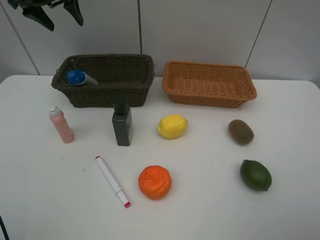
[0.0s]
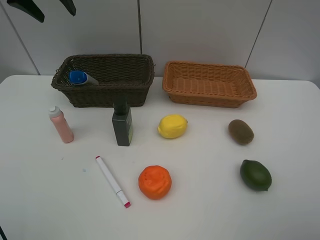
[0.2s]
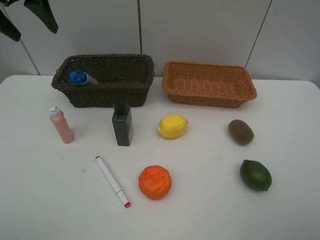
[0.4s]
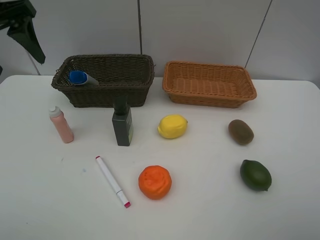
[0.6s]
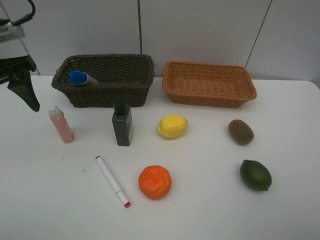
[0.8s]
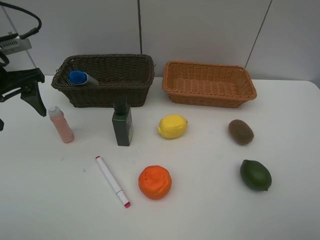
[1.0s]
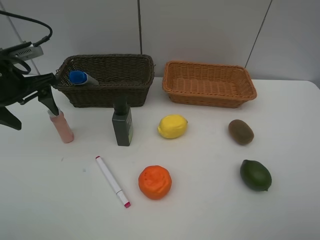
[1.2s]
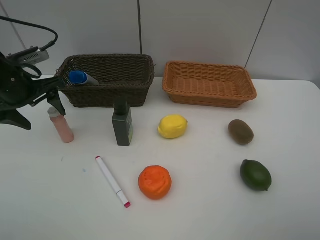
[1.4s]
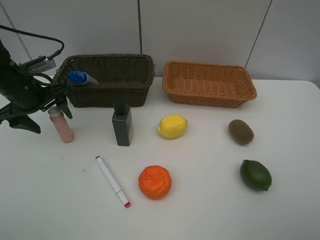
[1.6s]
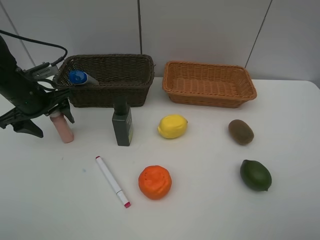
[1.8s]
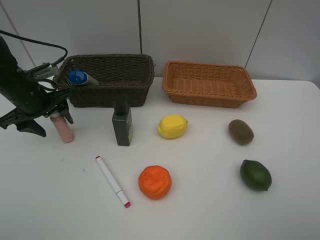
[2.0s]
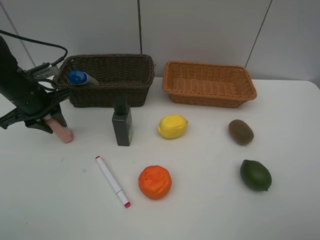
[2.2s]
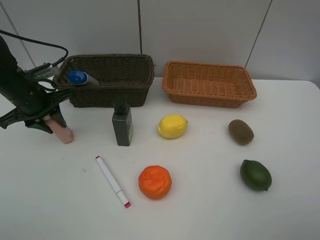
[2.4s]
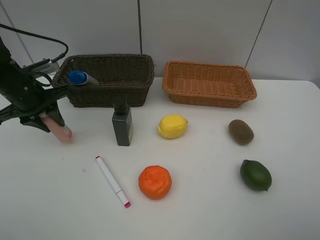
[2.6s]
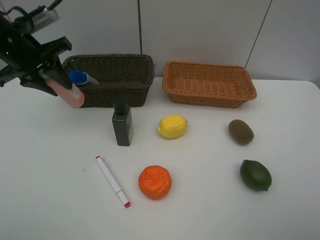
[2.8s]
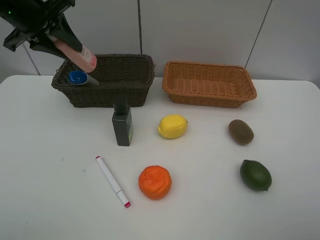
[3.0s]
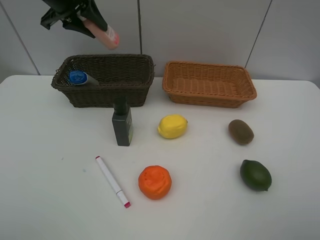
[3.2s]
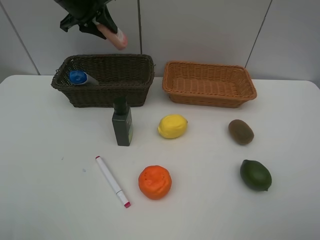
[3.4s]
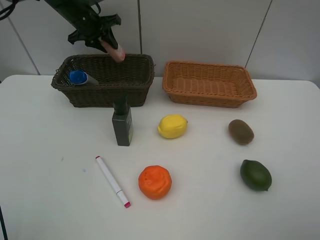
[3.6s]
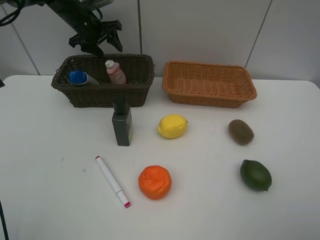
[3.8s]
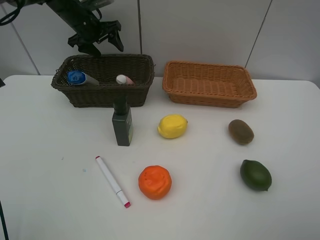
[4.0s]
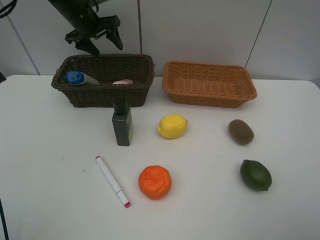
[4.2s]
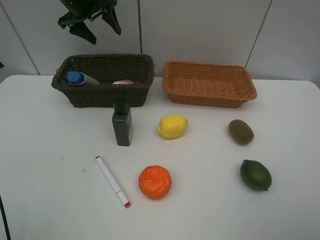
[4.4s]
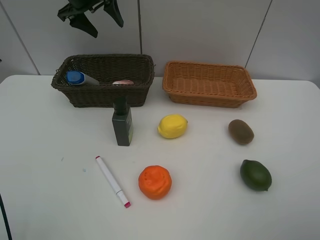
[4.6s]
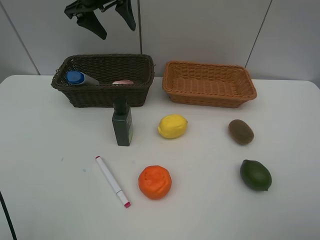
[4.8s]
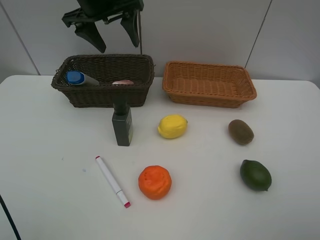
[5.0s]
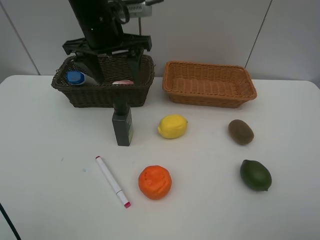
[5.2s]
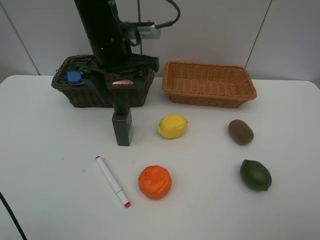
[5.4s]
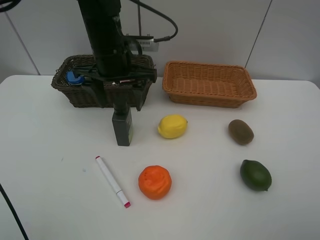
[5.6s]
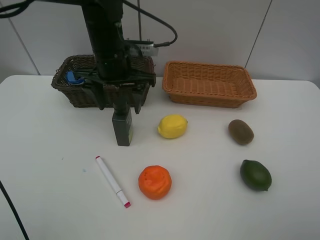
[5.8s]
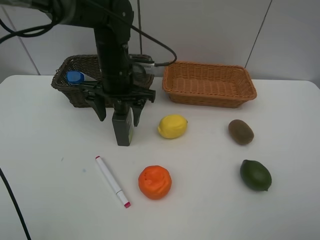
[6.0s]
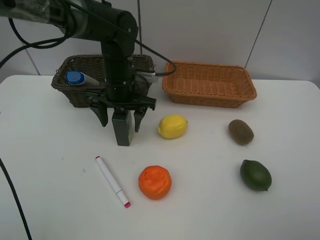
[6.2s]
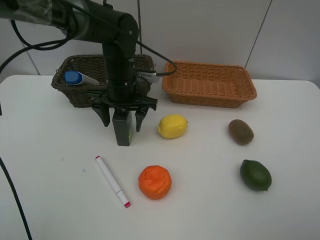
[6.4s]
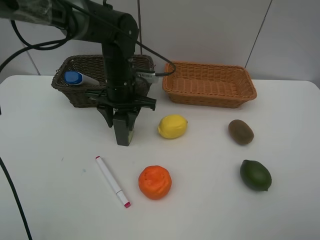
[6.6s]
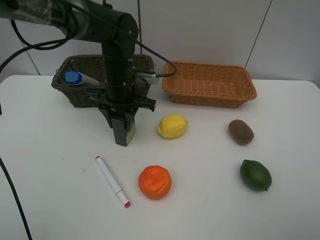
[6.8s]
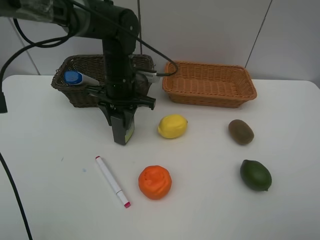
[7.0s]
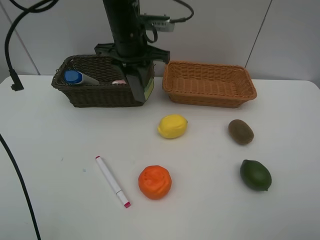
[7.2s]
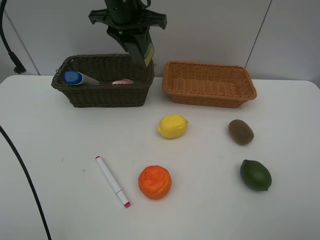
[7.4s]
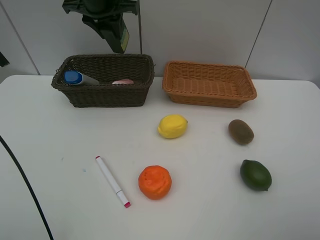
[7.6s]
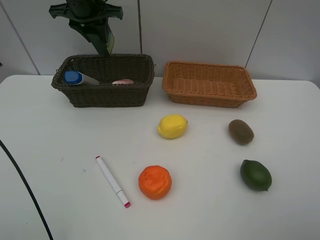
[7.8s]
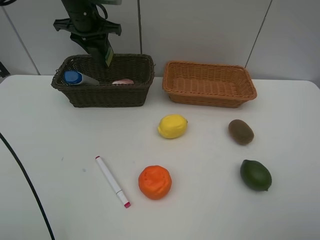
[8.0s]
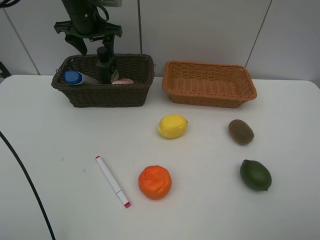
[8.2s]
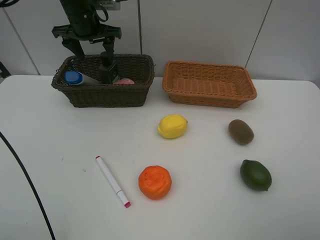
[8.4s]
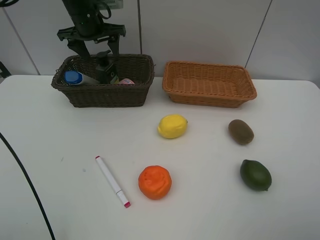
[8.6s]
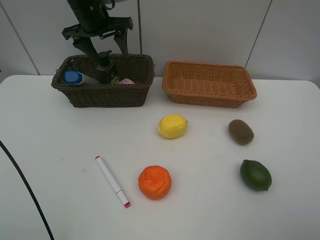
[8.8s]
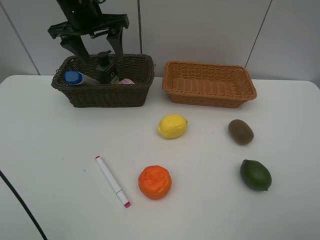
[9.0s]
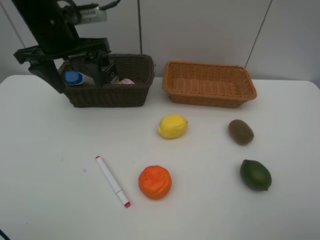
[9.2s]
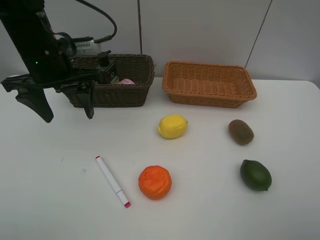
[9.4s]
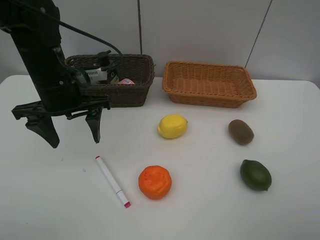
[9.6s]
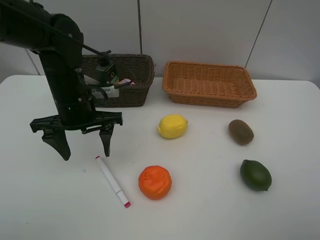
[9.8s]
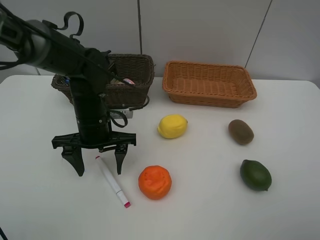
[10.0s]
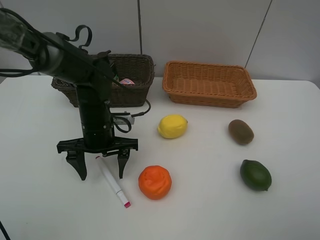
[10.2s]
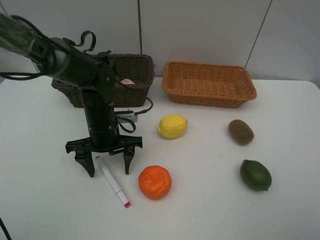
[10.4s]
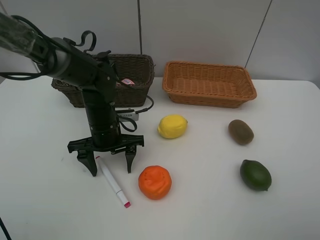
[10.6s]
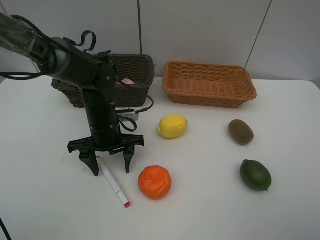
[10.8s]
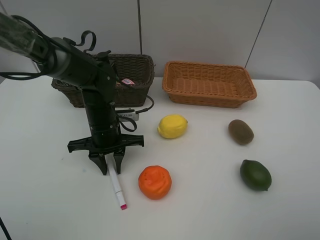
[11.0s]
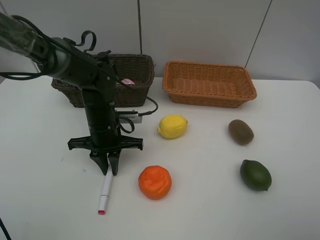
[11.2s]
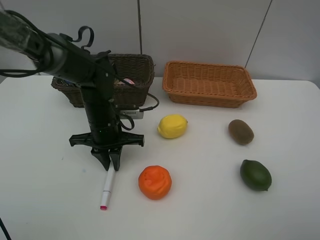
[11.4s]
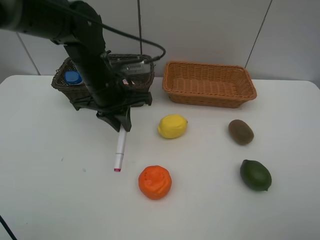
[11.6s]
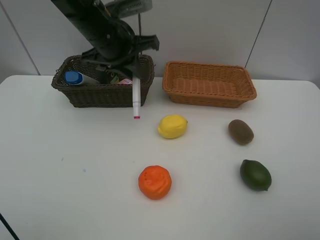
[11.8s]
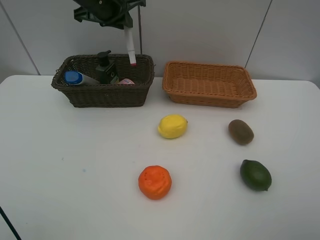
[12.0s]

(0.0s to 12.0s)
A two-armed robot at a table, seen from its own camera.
Task of the whole recording: Place multiple objects separately in different baskets.
Step, 0.0s - 2.6s: Pick up the laundry detergent with left gripper.
Step, 2.8s - 3.8s: Place the laundry detergent in the dark basket with left gripper.
Step, 4.0s - 7.0s: Pick up the hard facial cleanser with left gripper.
Step, 7.2s - 8.2s: Place the hard facial cleanser in the dark basket with left gripper.
Step, 8.4s - 11.4s: Pick up the red marker with left gripper.
0.0s - 1.6s: The left gripper travels downward and backward by some 25 cm.
1.6s - 3.0s: The left gripper moves upward, some 15 cm, and closes up.
3.0s - 4.4s: The left gripper heads forward, covering roughly 15 cm, and opens up.
4.4s - 6.0s: The left gripper heads backward, to the right and downward, covering approximately 25 cm.
6.0s - 7.6s: The left gripper goes approximately 20 cm upward, forward and to the left, and closes.
7.6s - 9.0s: The left gripper shifts about 5 cm backward, and opens up.
9.0s - 10.4s: The left gripper is displaced downward and backward by roughly 25 cm.
10.4s - 12.0s: The left gripper goes about 25 cm upward and forward, and closes.

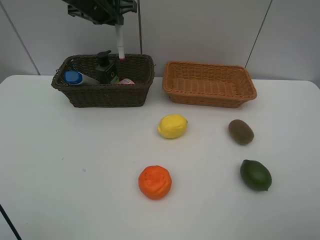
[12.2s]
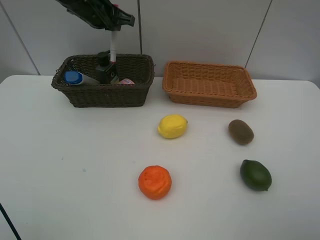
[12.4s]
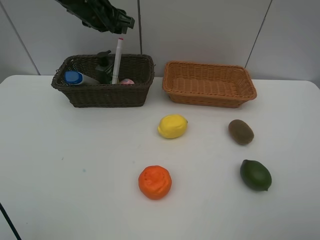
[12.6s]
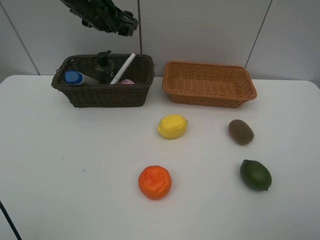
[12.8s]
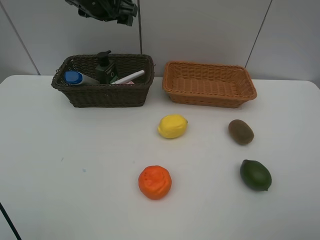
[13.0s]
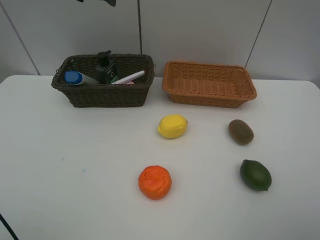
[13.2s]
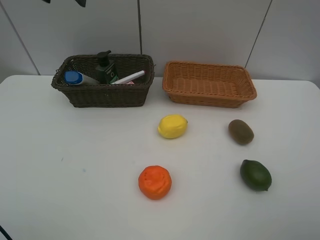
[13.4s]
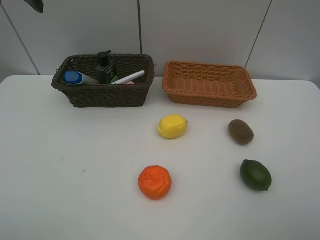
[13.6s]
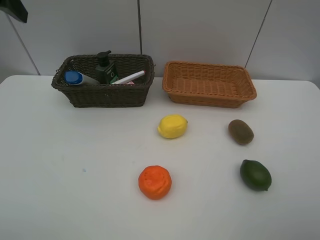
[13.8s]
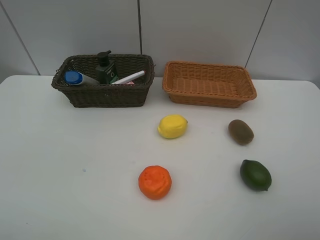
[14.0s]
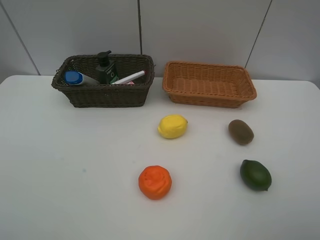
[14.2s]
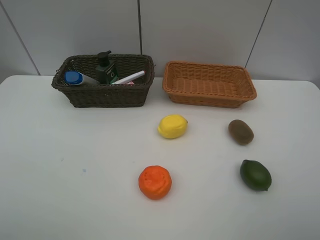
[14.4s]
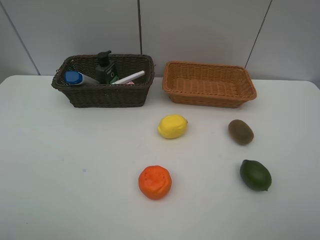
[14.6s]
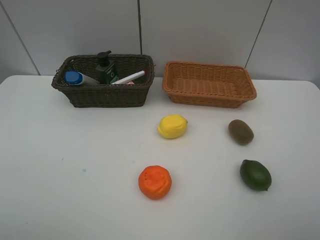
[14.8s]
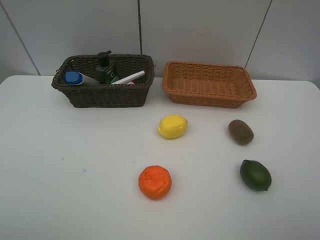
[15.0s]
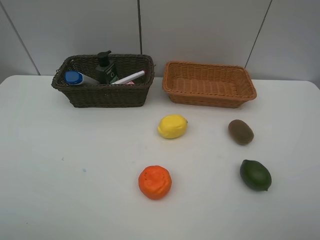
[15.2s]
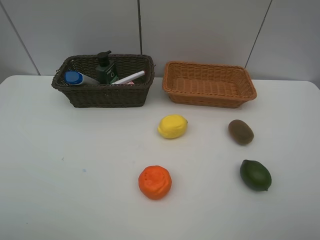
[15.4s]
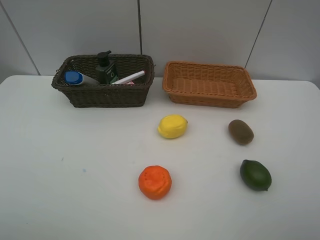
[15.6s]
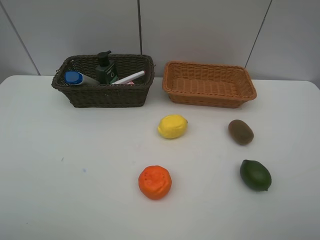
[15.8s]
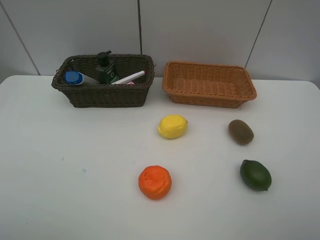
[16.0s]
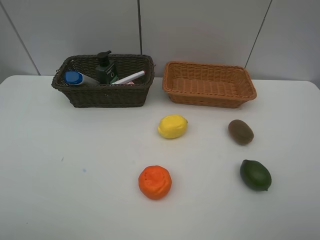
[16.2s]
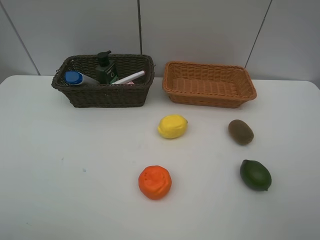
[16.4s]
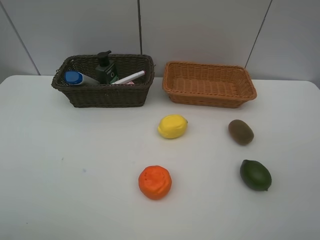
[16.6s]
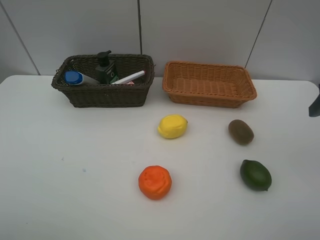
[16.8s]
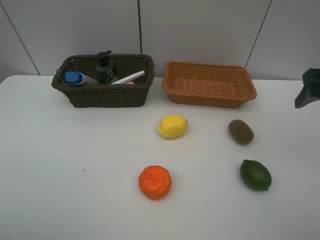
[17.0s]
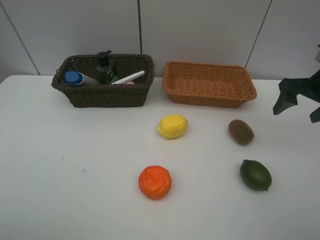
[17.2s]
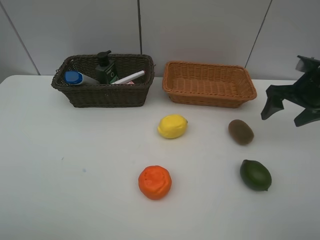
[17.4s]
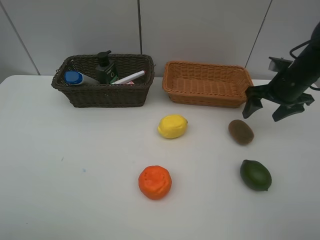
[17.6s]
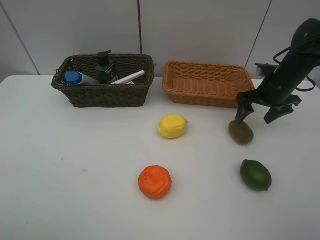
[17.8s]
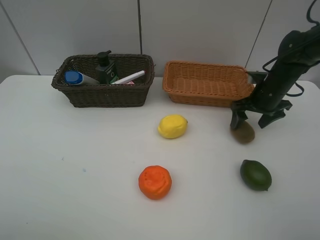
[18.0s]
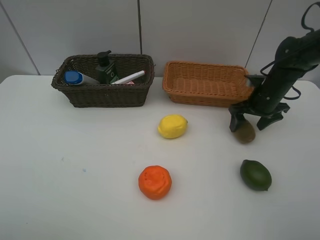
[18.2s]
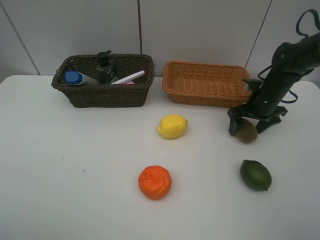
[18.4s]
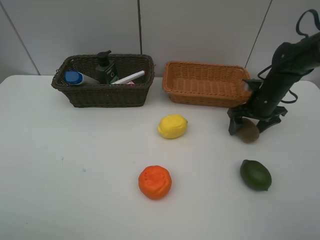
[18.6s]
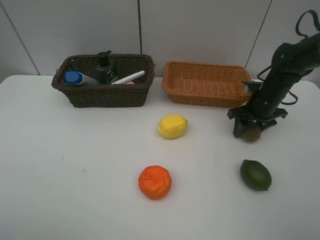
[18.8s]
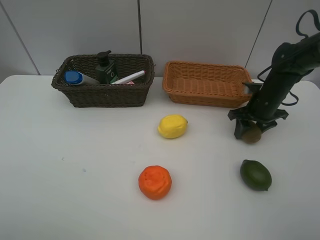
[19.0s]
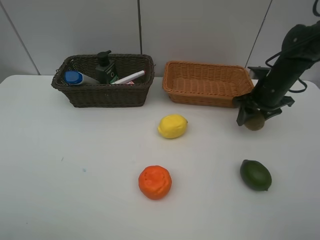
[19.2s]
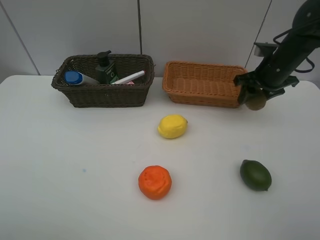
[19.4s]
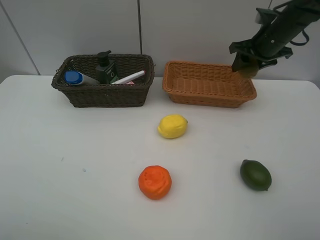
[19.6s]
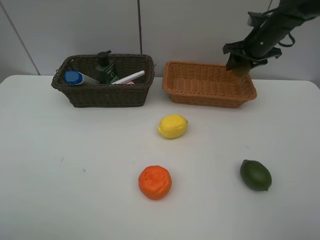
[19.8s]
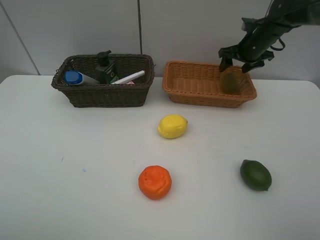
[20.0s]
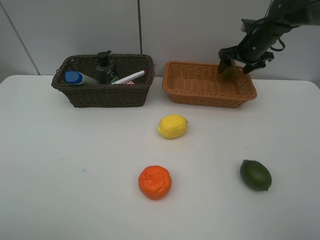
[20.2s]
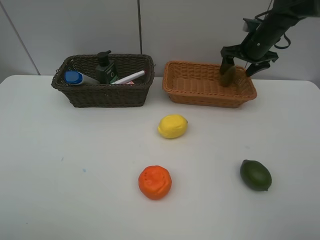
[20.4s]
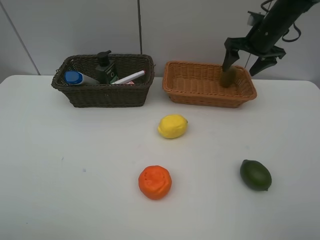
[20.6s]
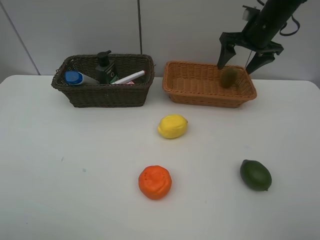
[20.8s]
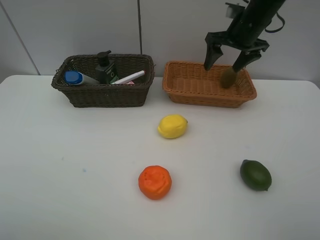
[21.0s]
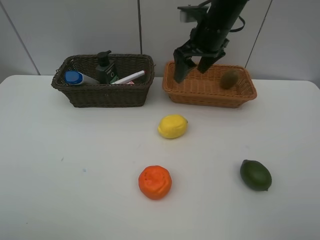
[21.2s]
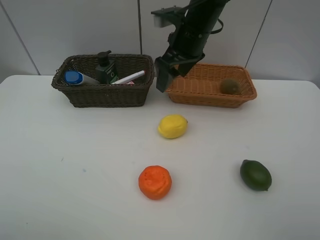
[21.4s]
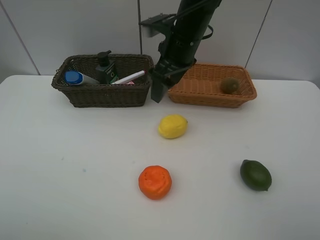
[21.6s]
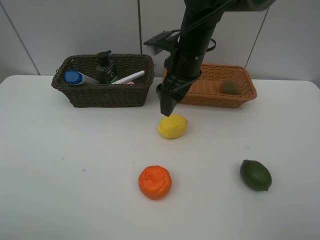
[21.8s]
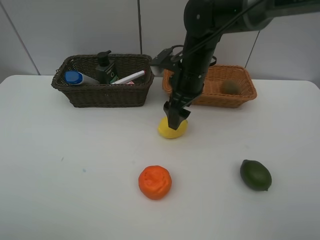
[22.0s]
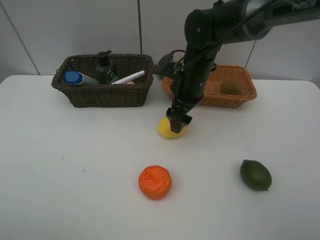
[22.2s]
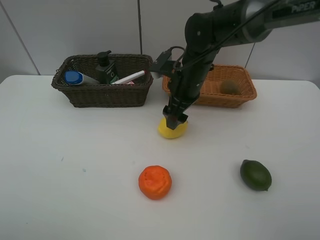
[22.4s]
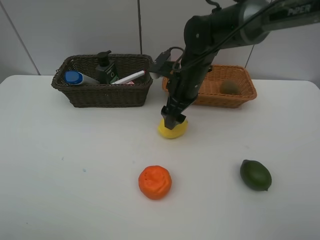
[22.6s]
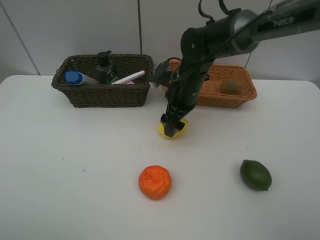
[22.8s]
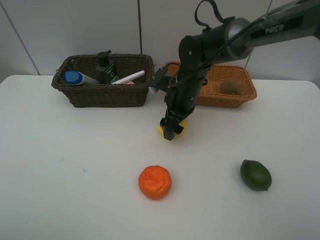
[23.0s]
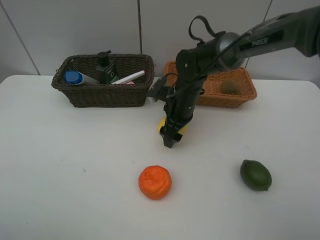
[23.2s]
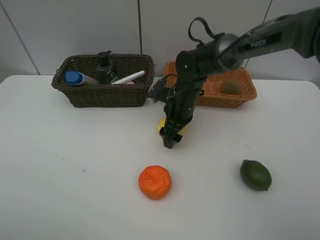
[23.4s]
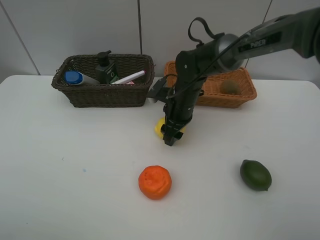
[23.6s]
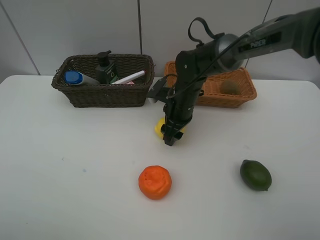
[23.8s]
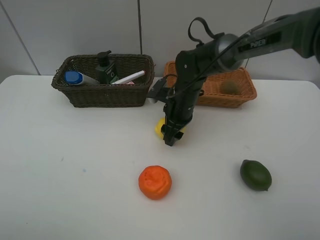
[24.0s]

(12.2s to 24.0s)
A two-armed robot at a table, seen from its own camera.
Task of the whole recording: Place multiple objects separately in different baskets.
Step, 12.8s - 19.0s: Pick up kiwi with right gripper.
Step, 19.2s - 20.2s: Place the kiwi in the light basket with right gripper.
12.2s - 13.6s: The left gripper moves to the left, backward and upward, roughly 20 cm, and opens its fingers.
16.6s - 18.2s: The right gripper travels forward and downward by approximately 30 cm.
18.2s - 19.6s: The right gripper travels upward and forward by about 15 cm, and closes.
19.6s - 21.0s: The right gripper goes about 10 cm to the left, and opens its fingers.
21.0s - 22.6s: The right gripper goes roughly 15 cm to the left, downward and backward.
22.6s - 24.0s: The right gripper heads downward, covering about 5 cm, and closes its fingers.
